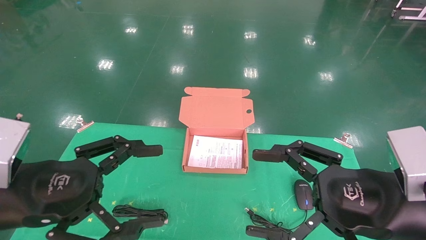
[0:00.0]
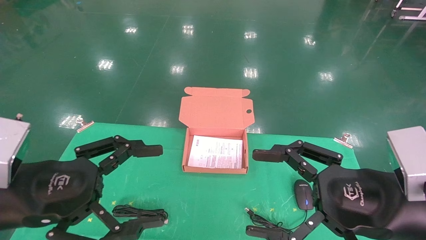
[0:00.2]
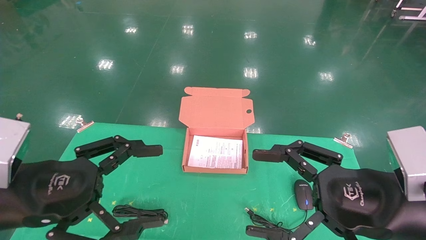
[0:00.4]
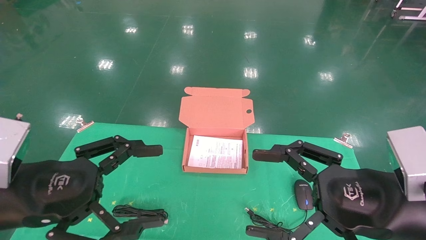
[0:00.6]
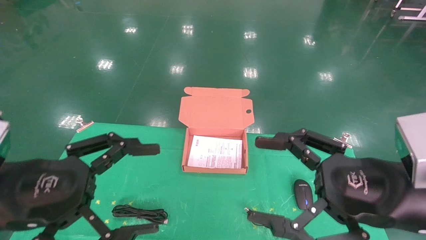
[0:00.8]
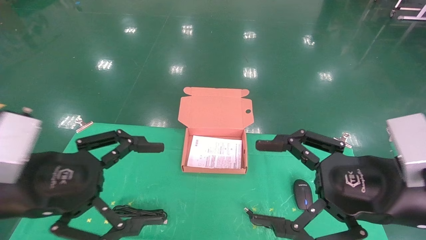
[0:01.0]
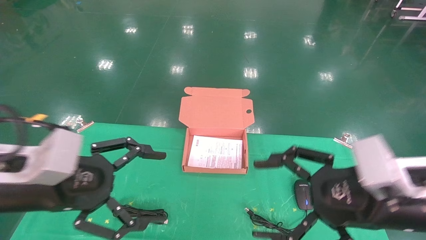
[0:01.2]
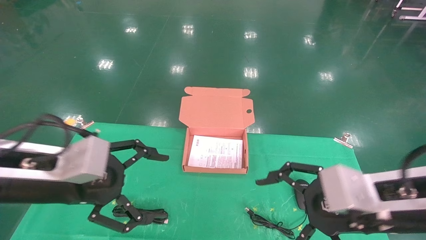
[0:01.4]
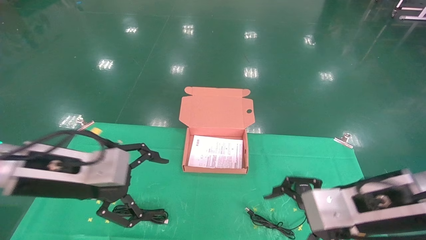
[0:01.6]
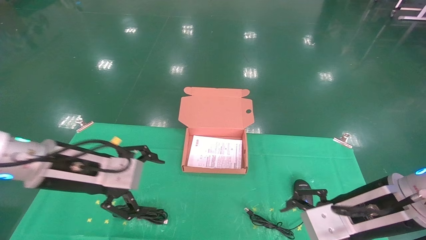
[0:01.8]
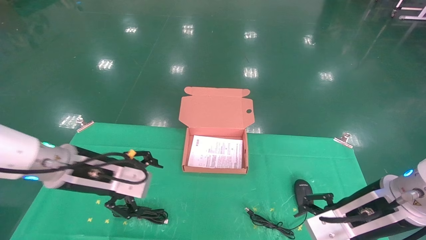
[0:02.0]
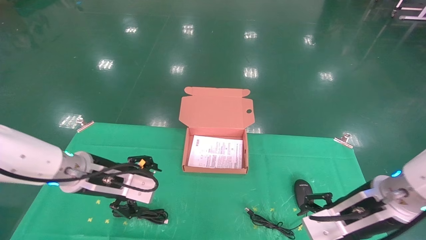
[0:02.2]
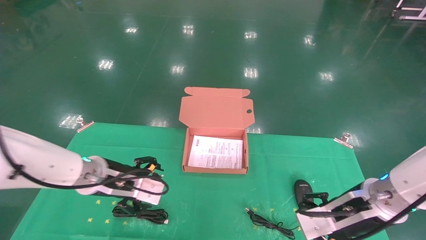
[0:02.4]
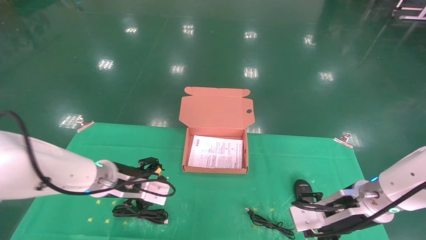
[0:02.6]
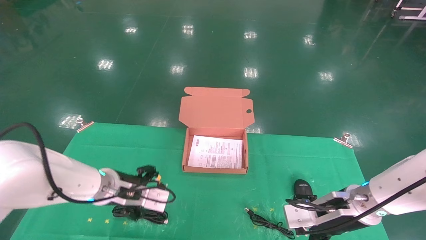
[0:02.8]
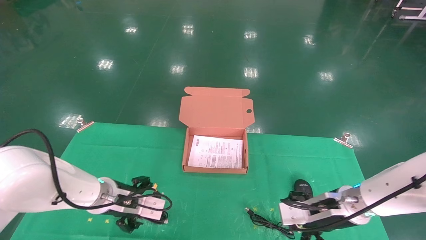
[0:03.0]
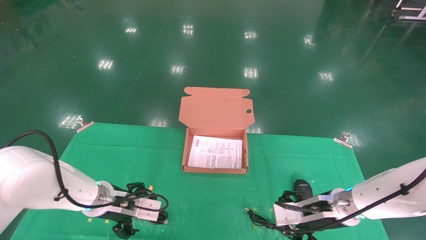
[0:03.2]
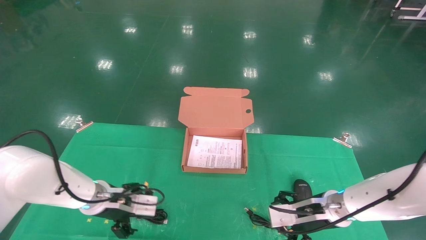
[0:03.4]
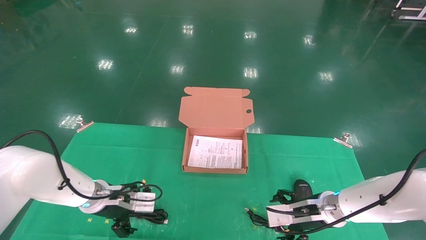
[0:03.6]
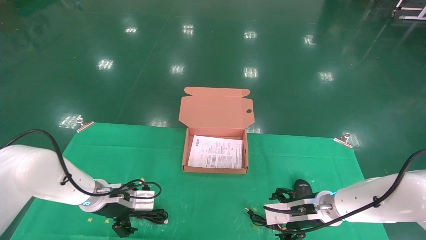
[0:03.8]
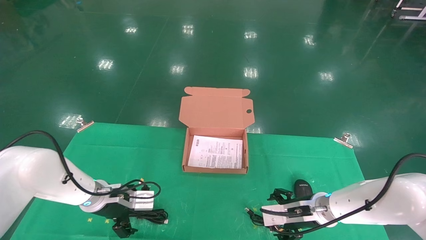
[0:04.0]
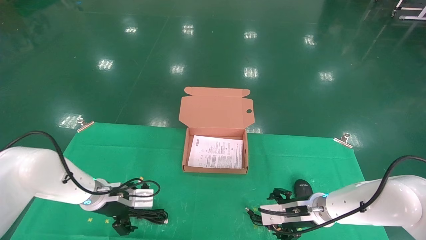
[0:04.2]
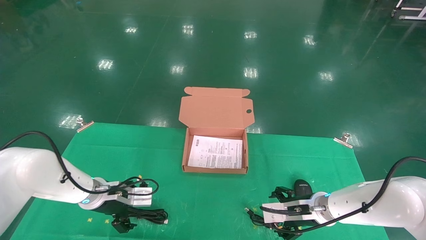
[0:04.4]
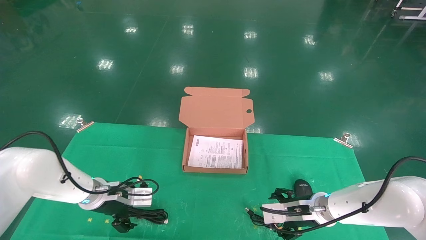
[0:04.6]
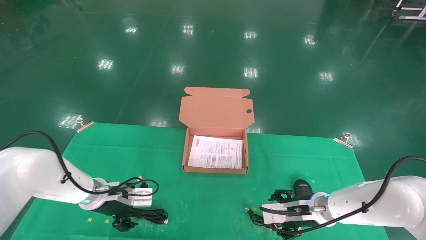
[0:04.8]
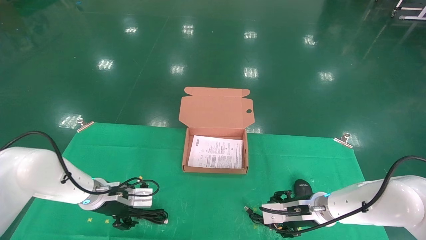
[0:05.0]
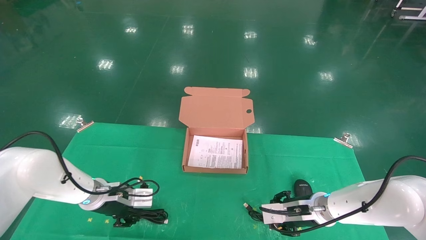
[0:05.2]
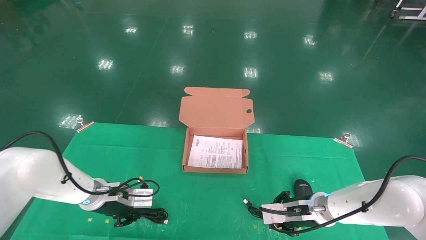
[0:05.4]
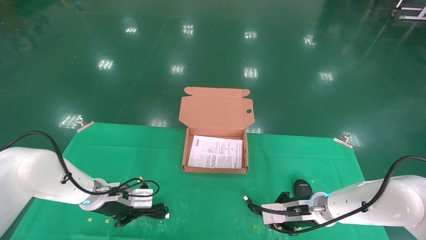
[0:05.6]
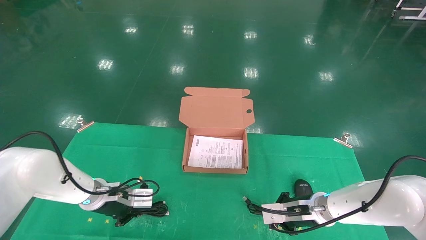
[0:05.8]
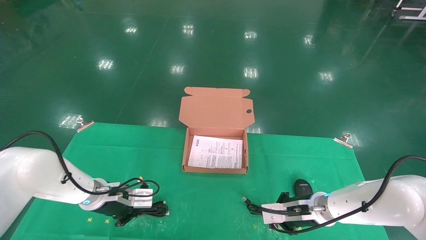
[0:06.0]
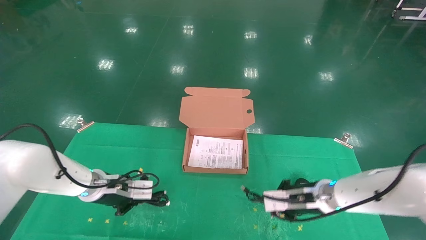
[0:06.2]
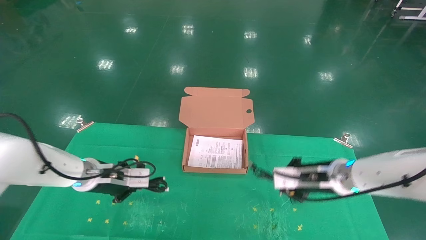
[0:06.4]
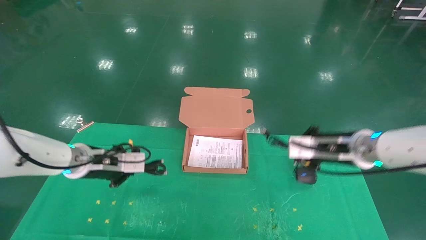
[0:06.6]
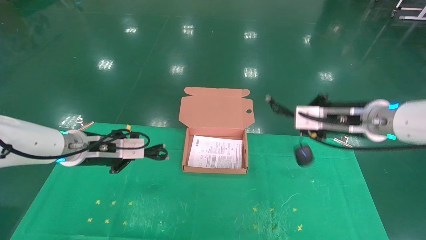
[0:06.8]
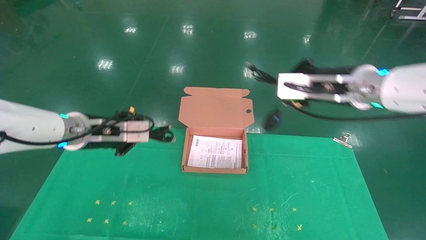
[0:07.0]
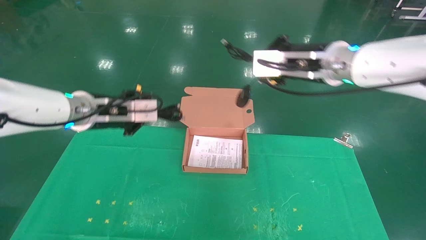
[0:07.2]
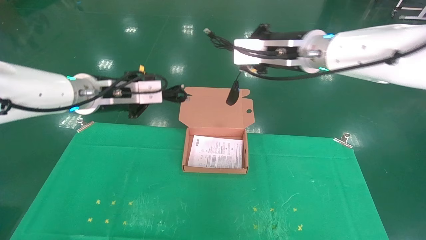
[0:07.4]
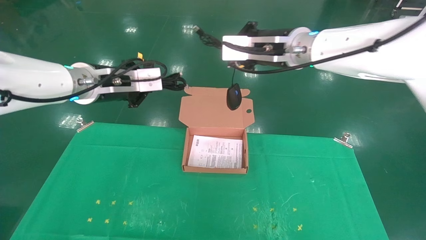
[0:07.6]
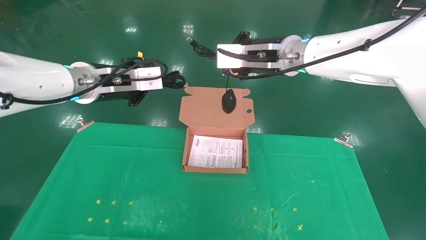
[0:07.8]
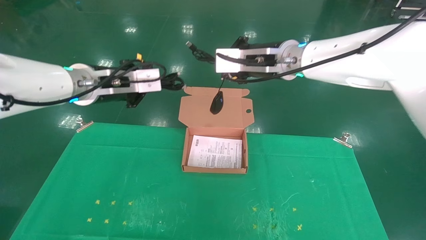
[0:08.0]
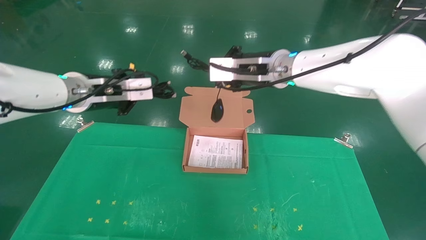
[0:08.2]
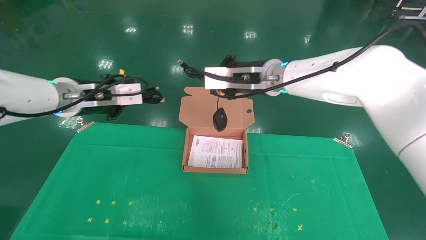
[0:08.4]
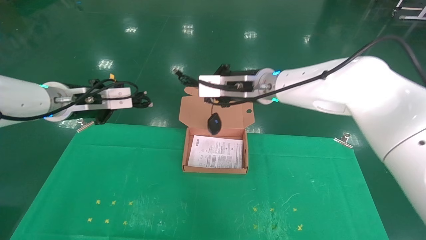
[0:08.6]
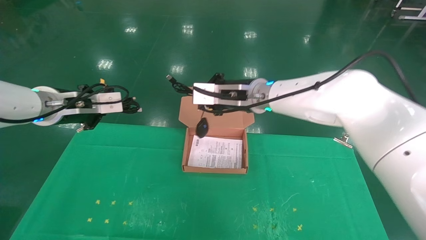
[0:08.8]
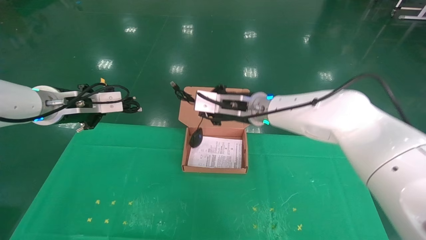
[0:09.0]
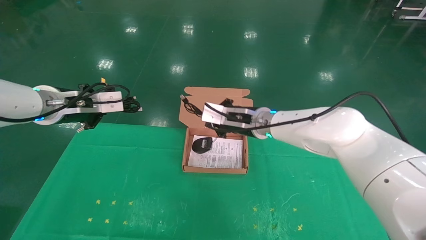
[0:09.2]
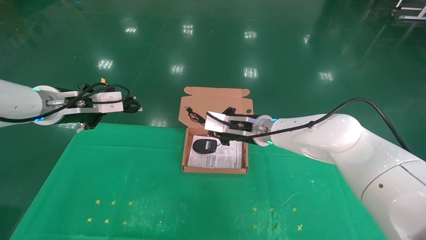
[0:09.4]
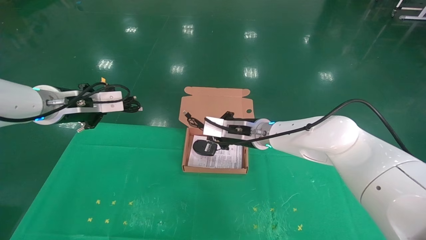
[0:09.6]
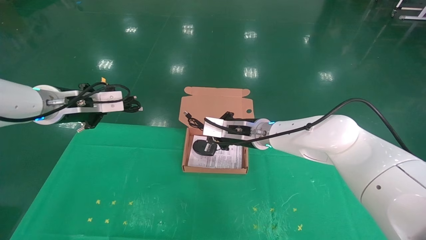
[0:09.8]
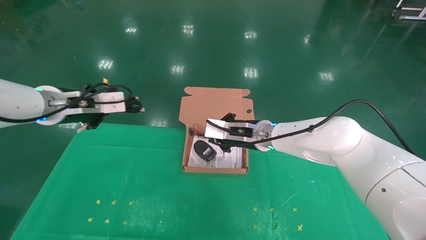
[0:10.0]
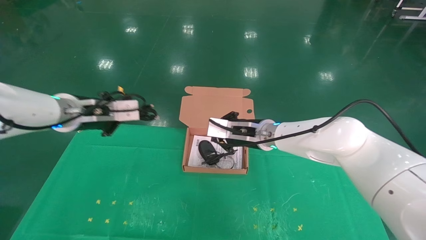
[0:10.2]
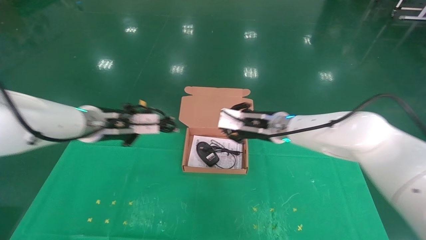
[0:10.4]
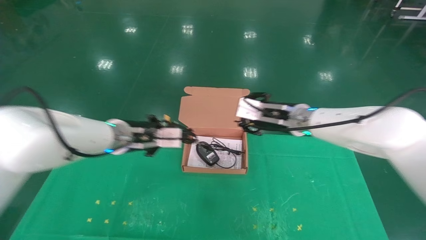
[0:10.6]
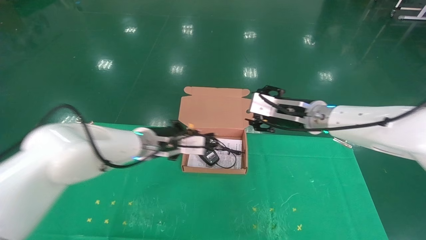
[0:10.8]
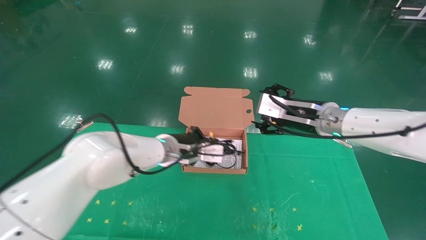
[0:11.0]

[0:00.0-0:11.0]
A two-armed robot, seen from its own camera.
Task of the whole recording: grasp data cable left put into box grasp mouse right put into box.
Step, 0:01.0 to 0:06.2: Grab and pick up both the mouse and power cord from the accessory packaging area at the same time.
0:00.0 to 0:01.6: The left gripper goes roughly 5 cm forward. Meanwhile the right gripper shifts by roughly 5 cm.
0:01.6 to 0:03.2: The right gripper travels forward and downward by about 20 cm. Meanwhile the left gripper heads downward and forward, covering roughly 20 cm.
0:03.2 to 0:04.8: The left gripper shifts by roughly 5 cm; the right gripper moves some 5 cm.
0:04.8 to 0:06.2: The left gripper closes up, while the right gripper is displaced upward by some 5 cm, and closes its fingers.
0:06.2 to 0:07.8: The grippers both shift upward by about 25 cm.
0:07.8 to 0:09.4: The right gripper shifts roughly 15 cm downward. Meanwhile the left gripper heads to the left, covering some 10 cm.
0:09.4 to 0:11.0: The right gripper is displaced to the right and backward by approximately 15 cm, and opens its fingers, while the left gripper is displaced to the right and downward by roughly 25 cm.

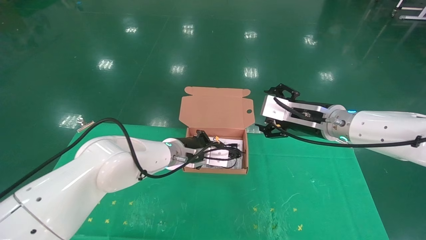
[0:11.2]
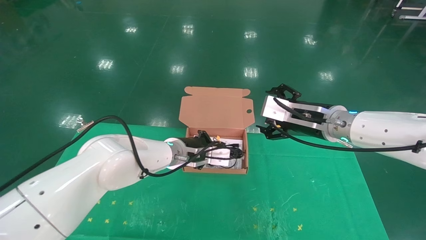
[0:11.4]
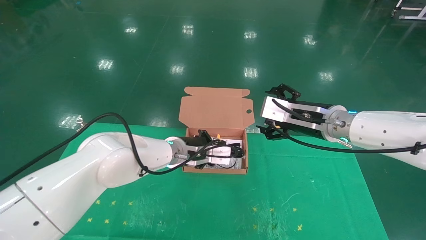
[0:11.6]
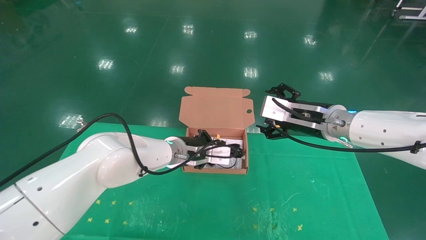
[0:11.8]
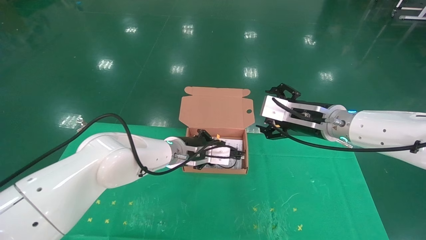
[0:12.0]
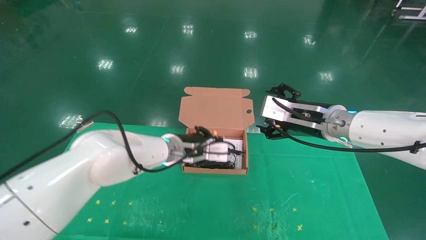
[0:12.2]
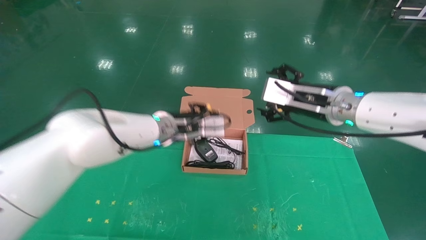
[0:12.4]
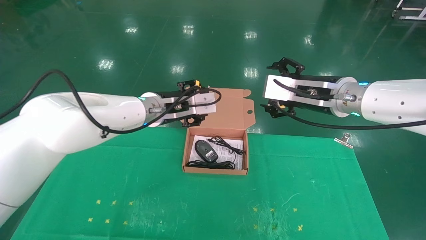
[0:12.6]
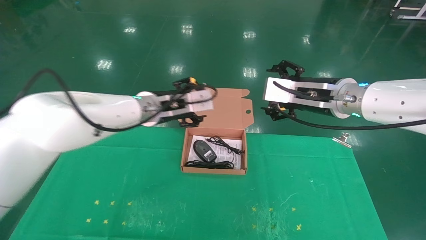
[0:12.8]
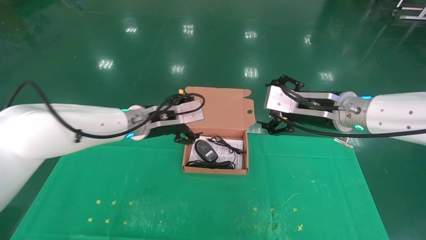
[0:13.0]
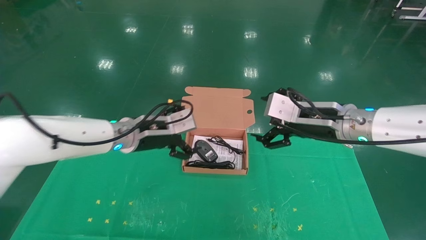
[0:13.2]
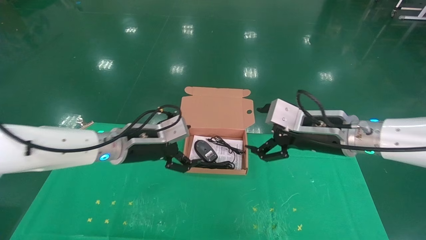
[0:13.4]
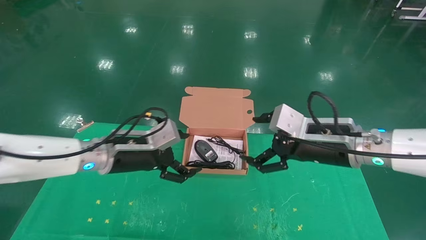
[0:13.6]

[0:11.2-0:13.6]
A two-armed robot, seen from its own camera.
Task of the whole recording: grasp data cable left put into box grasp mouse right put into box.
0:11.2 to 0:12.4: The left gripper goes some 5 cm upward, and opens.
0:12.4 to 0:13.6: The right gripper heads backward, covering roughly 5 cm, while the left gripper travels to the left and backward by roughly 10 cm, and opens up.
